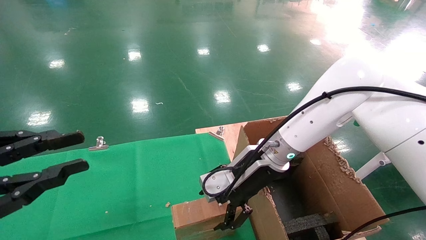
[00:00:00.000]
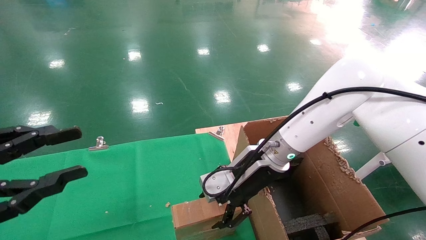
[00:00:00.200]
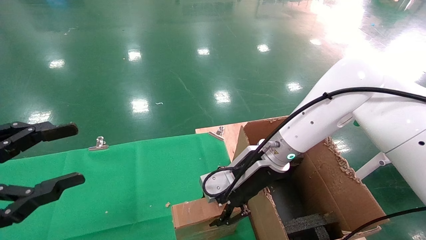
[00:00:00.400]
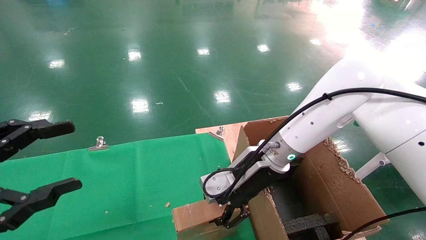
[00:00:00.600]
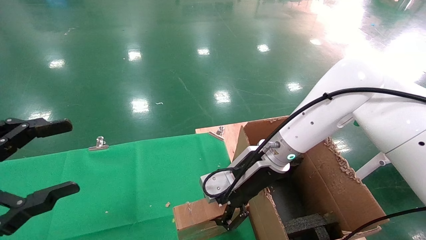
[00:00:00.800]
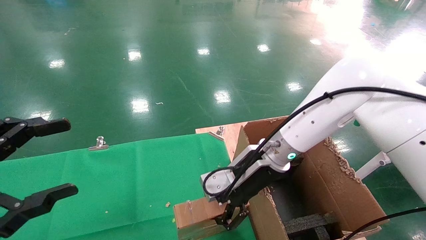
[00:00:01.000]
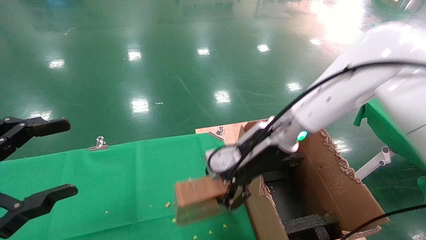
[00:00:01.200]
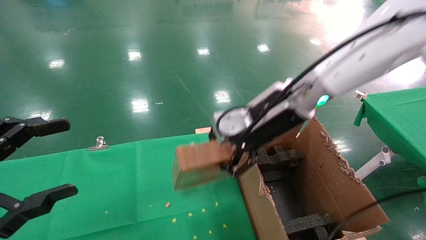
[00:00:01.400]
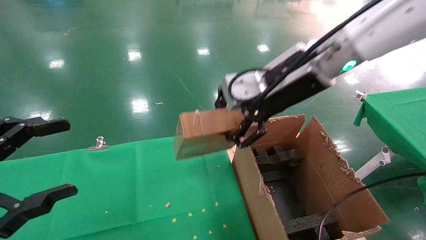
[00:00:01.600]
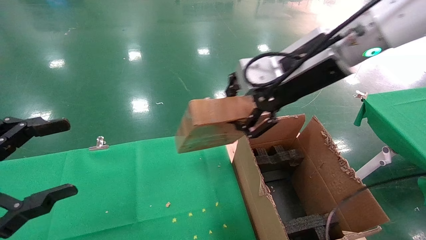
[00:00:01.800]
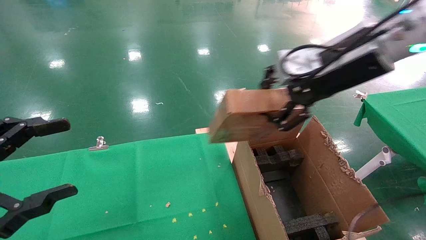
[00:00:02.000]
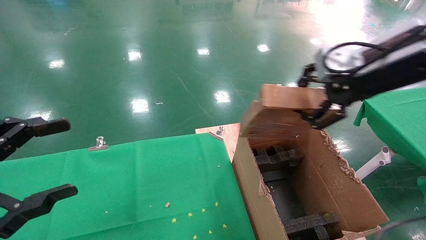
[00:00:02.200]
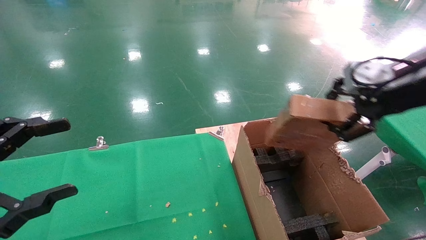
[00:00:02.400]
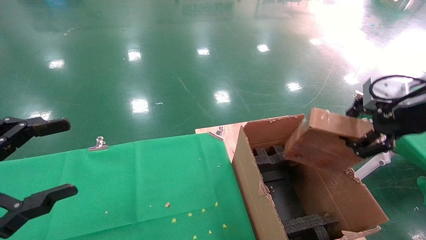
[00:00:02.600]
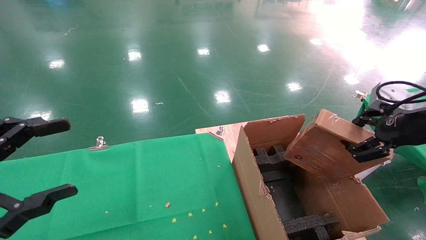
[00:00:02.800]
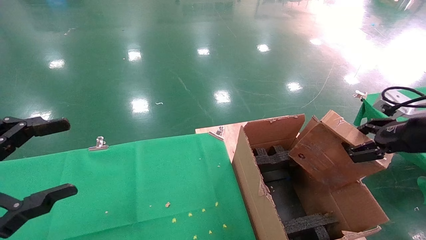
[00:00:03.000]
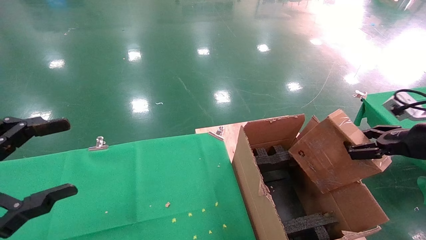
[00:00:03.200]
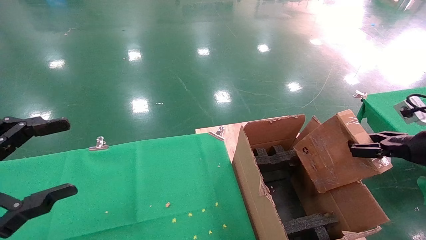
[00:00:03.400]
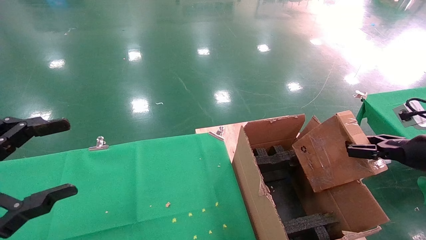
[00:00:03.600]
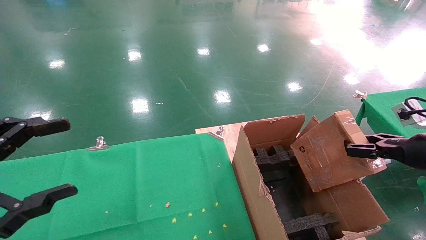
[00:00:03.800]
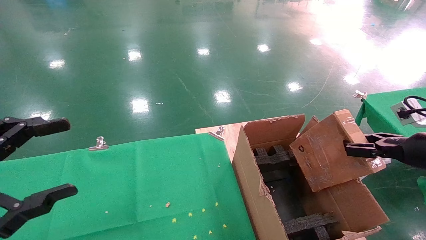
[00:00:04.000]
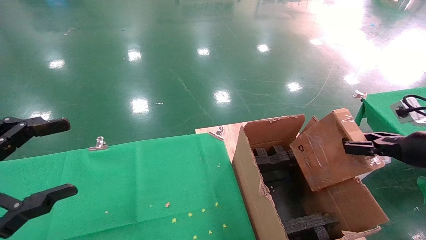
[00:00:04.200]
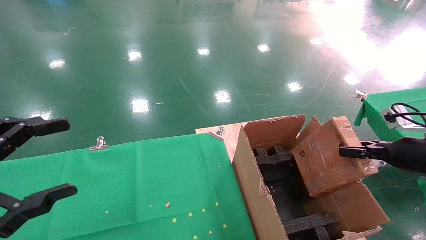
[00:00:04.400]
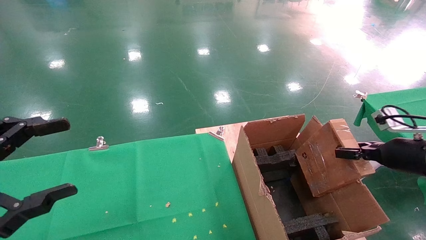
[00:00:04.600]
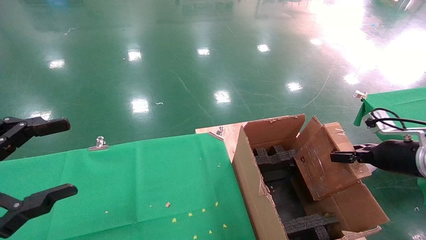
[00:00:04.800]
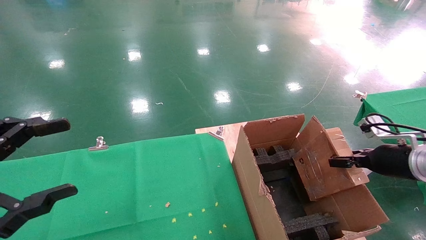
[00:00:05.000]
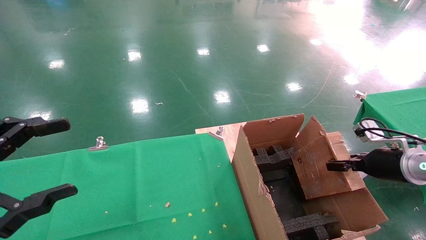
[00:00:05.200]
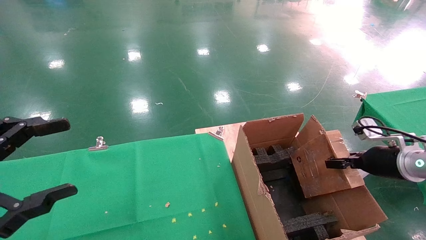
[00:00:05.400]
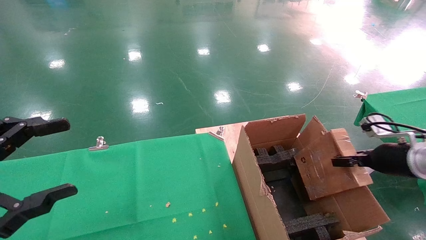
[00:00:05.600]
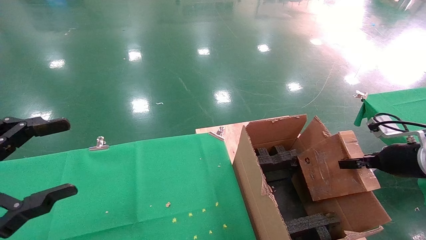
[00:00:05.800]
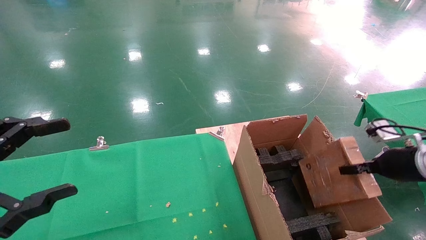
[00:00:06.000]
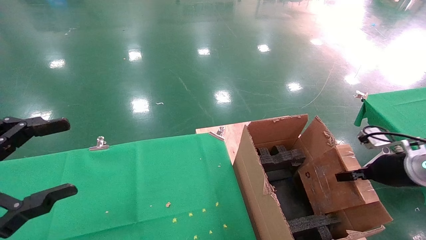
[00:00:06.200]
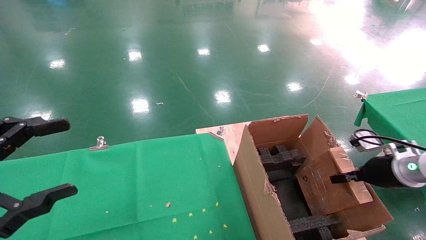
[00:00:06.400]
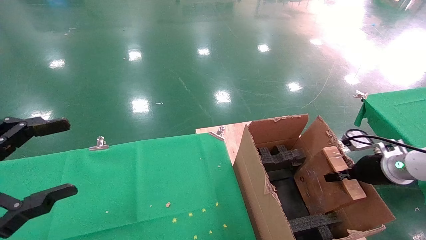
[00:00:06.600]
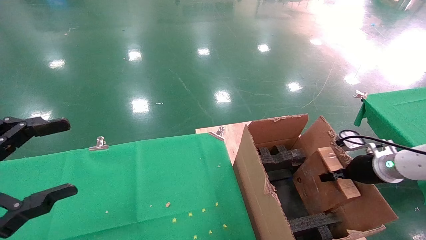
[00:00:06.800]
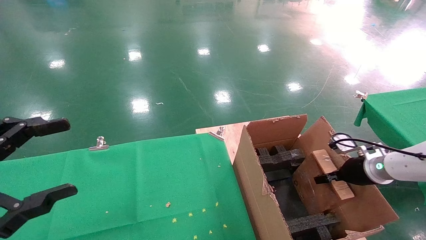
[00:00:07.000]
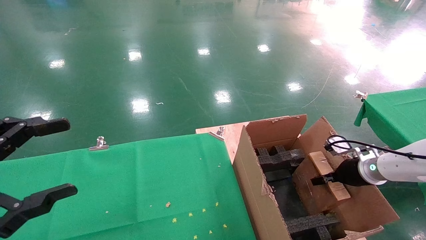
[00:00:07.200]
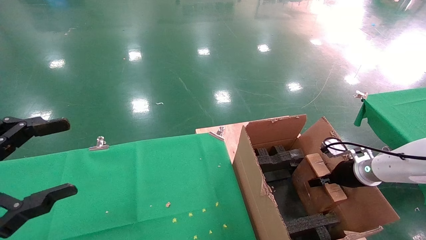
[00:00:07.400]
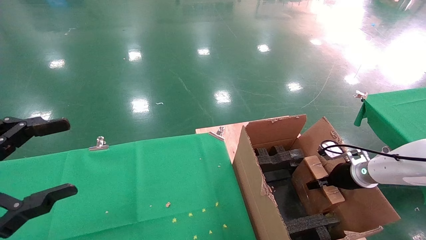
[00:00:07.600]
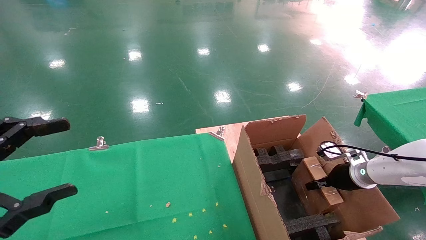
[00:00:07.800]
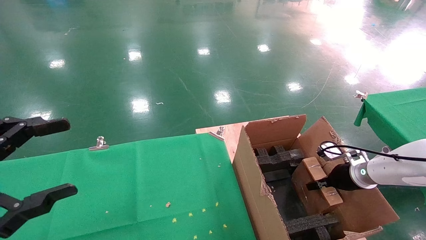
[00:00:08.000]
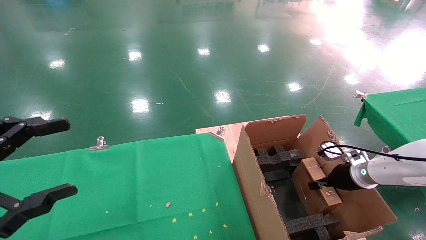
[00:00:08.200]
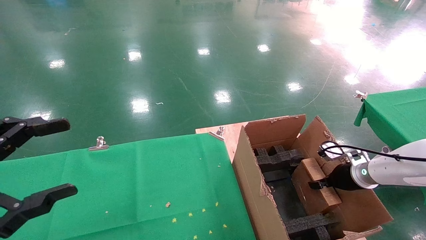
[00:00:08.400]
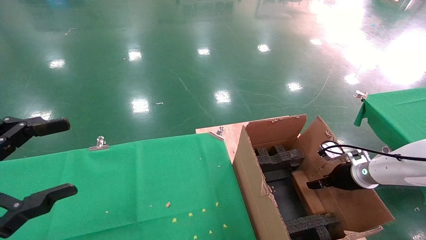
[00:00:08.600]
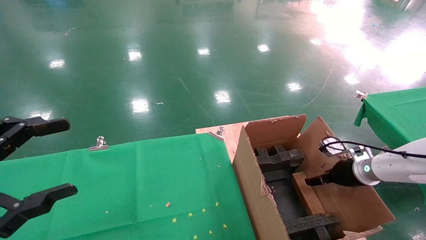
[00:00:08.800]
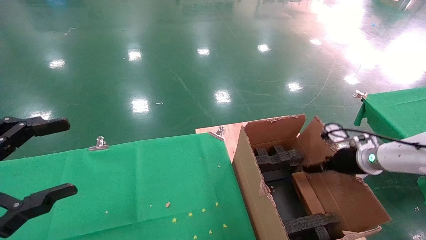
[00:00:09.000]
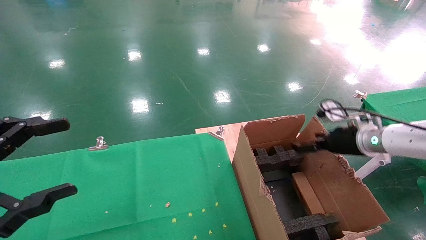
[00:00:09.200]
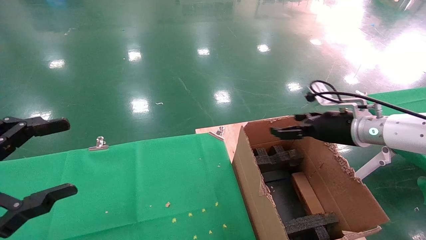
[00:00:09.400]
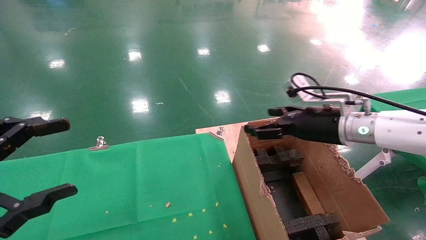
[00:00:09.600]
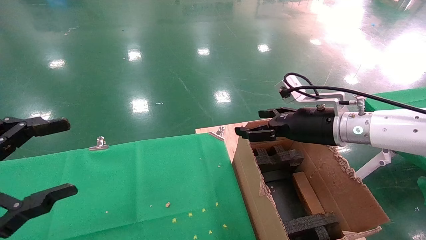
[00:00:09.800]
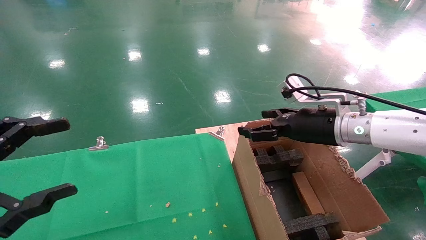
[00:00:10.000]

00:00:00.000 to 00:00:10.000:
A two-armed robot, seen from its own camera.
Task of the whole recording: using a robotic arm to pick up a cardboard box and palace it the carton.
Step, 00:00:00.800 to 00:00:09.200: Place the mouse and the power cord paper box into the container.
00:00:00.000 to 00:00:01.400: The right gripper moves upward, roughly 10 cm, and closes up; the left gripper opens up.
00:00:01.400 to 00:00:02.800: The right gripper shifts approximately 25 cm to the right.
00:00:02.800 to 00:00:04.200: The right gripper travels downward and to the right by approximately 10 cm.
00:00:04.200 to 00:00:05.800: The right gripper ends up some 5 cm from where it was.
00:00:05.800 to 00:00:07.200: The right gripper goes about 10 cm forward and downward.
00:00:07.200 to 00:00:08.600: The right gripper opens up.
00:00:08.600 to 00:00:10.000: The right gripper moves upward and to the left, approximately 20 cm, and opens up.

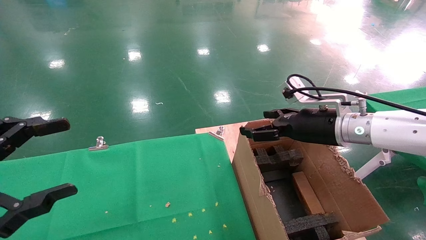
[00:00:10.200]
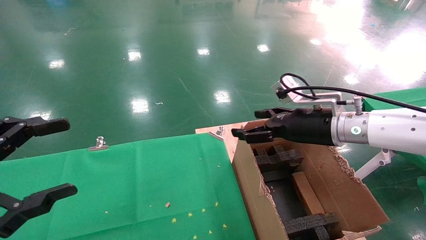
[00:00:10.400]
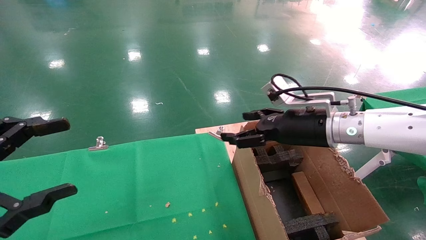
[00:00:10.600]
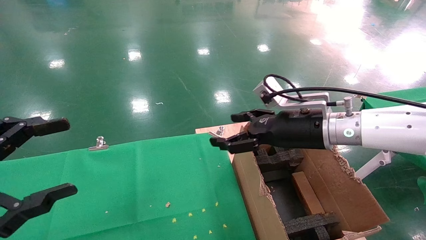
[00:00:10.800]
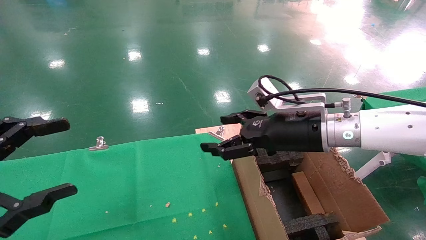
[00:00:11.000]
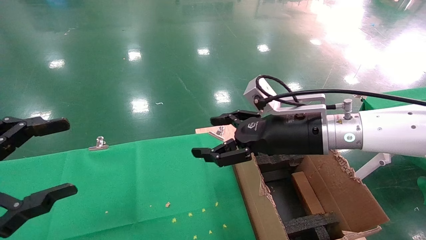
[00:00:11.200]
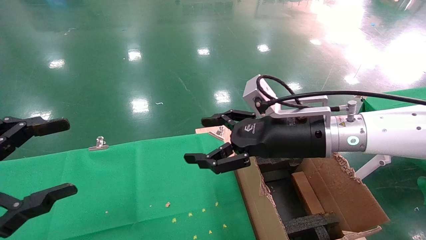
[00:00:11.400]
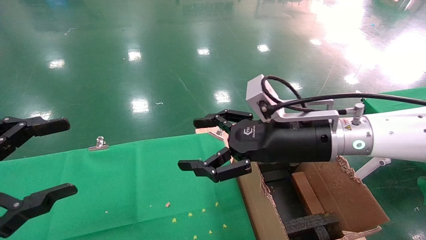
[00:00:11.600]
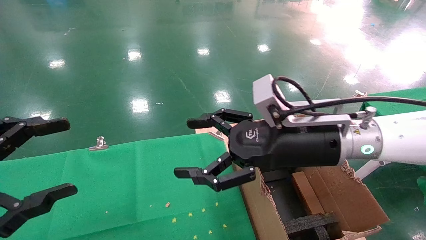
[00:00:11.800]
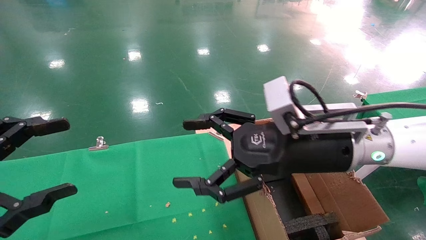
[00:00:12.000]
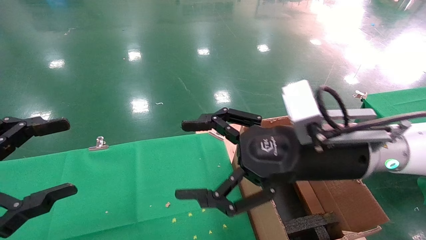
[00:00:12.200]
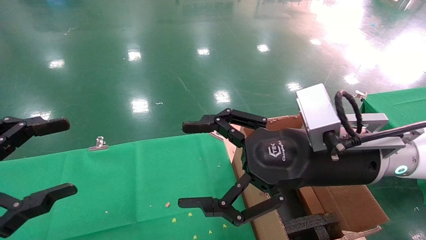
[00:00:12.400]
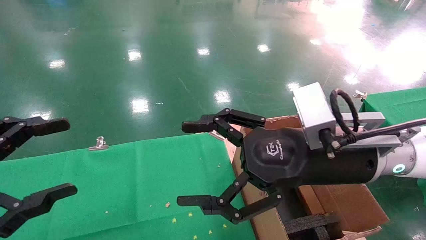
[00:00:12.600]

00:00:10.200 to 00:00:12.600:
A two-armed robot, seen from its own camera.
Task of the whole recording: using a robotic arm to pick up a cardboard box and palace it the carton.
00:00:10.200 to 00:00:11.400: The right gripper shifts approximately 10 cm to the left.
00:00:11.400 to 00:00:12.600: The right gripper moves backward, some 5 cm.
